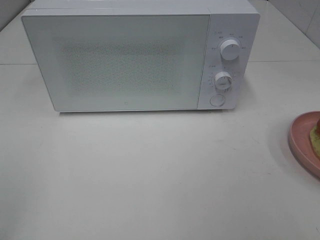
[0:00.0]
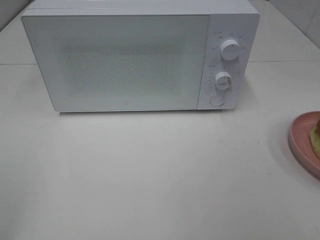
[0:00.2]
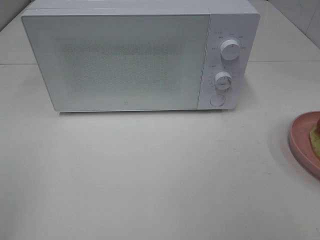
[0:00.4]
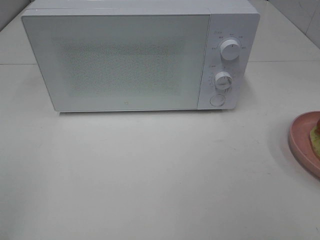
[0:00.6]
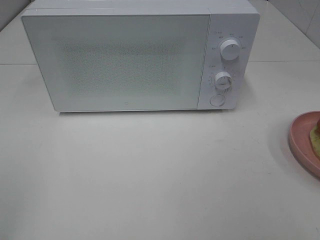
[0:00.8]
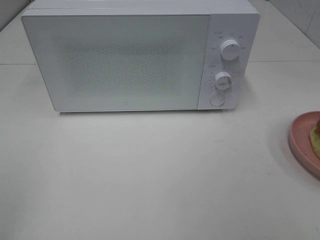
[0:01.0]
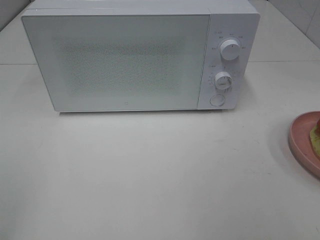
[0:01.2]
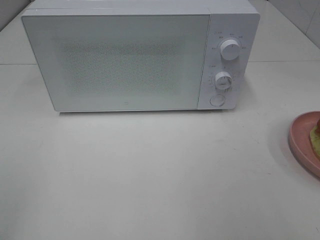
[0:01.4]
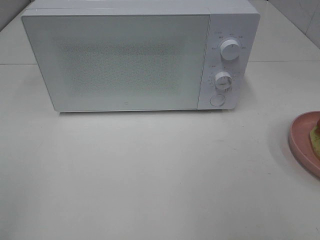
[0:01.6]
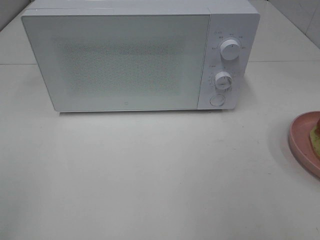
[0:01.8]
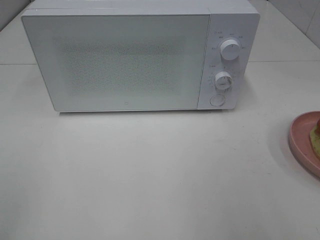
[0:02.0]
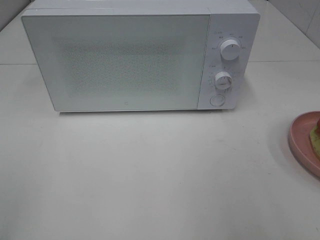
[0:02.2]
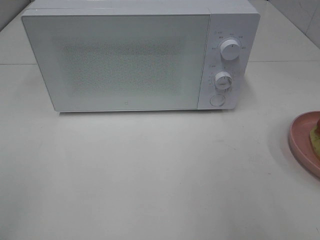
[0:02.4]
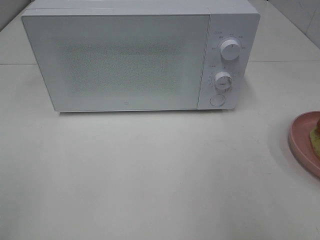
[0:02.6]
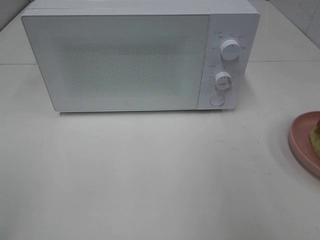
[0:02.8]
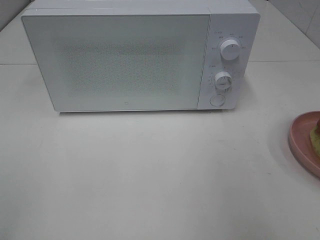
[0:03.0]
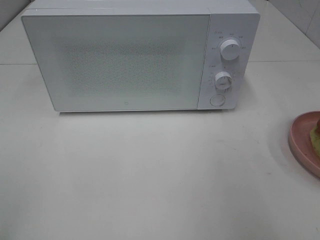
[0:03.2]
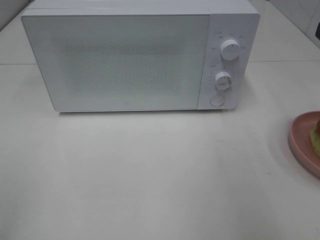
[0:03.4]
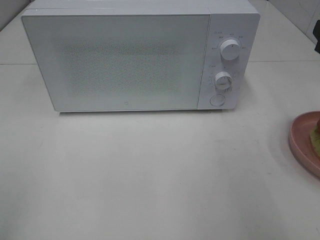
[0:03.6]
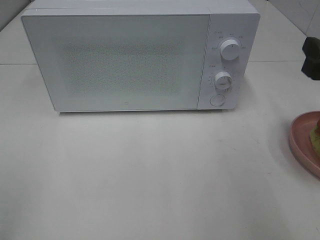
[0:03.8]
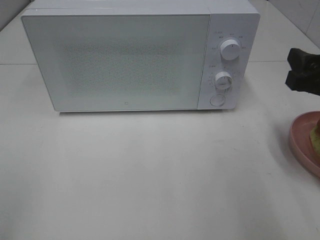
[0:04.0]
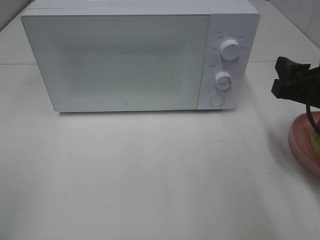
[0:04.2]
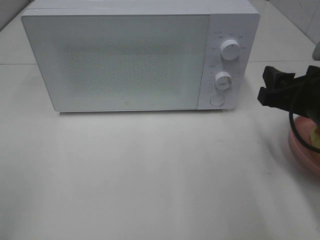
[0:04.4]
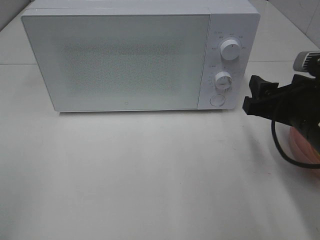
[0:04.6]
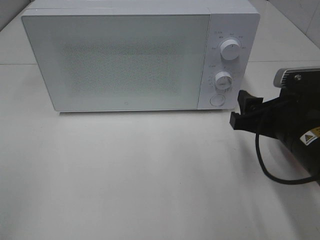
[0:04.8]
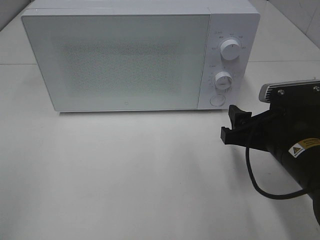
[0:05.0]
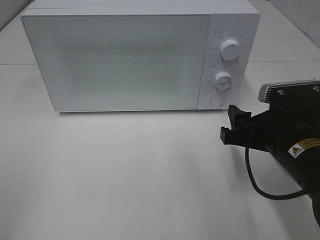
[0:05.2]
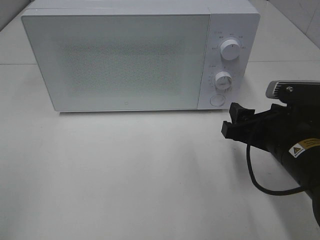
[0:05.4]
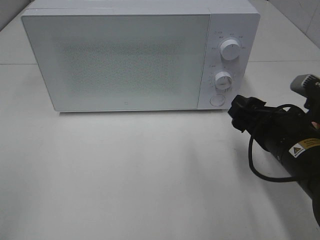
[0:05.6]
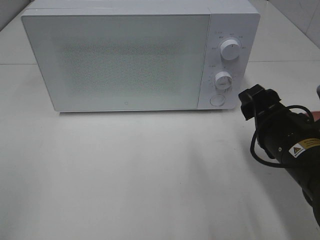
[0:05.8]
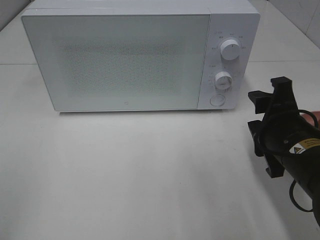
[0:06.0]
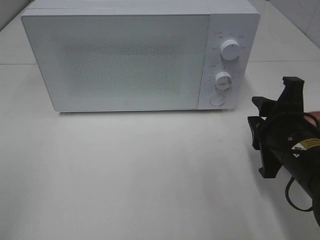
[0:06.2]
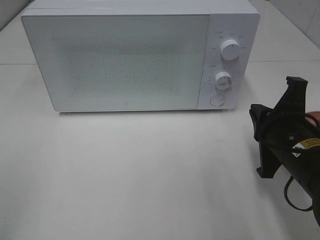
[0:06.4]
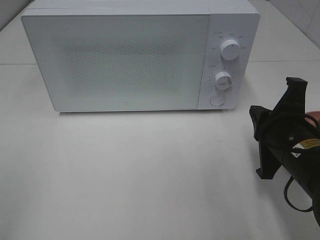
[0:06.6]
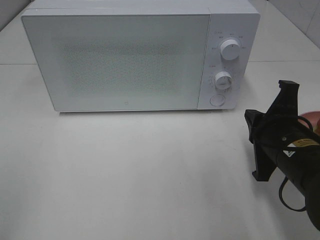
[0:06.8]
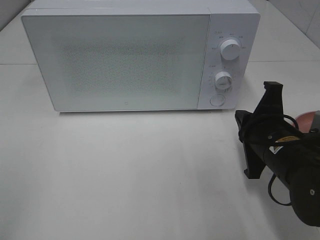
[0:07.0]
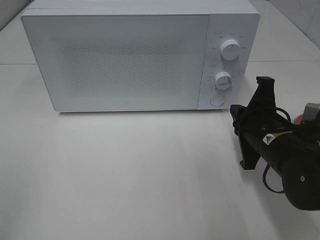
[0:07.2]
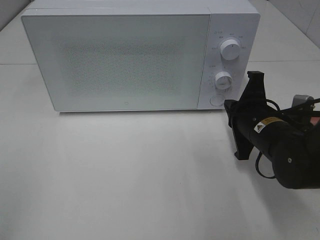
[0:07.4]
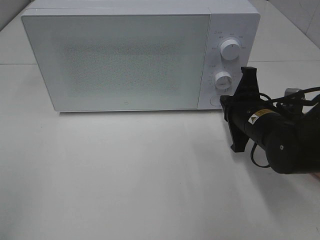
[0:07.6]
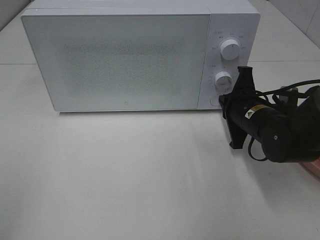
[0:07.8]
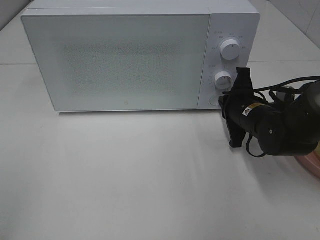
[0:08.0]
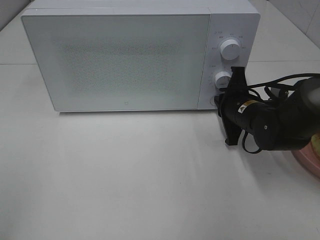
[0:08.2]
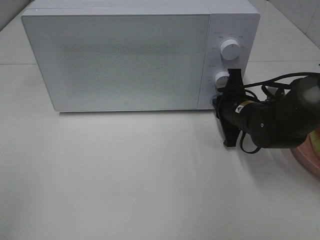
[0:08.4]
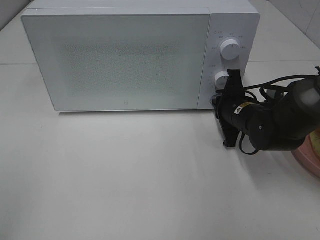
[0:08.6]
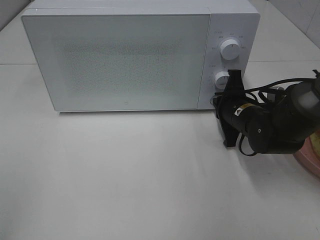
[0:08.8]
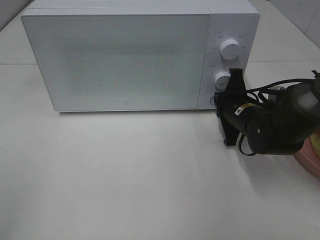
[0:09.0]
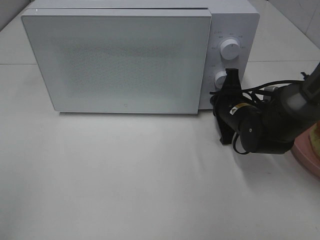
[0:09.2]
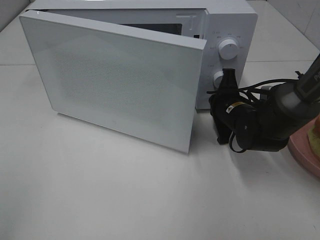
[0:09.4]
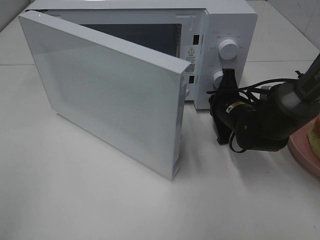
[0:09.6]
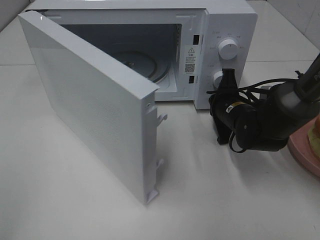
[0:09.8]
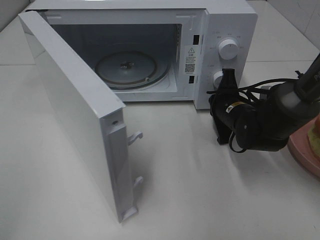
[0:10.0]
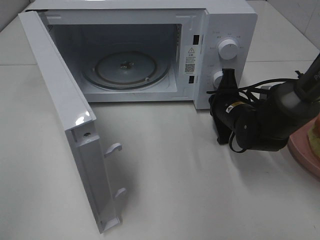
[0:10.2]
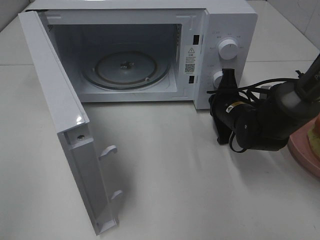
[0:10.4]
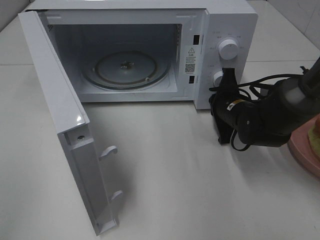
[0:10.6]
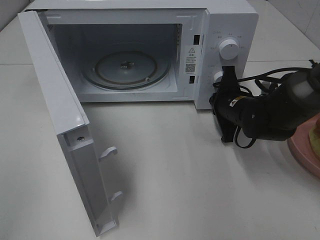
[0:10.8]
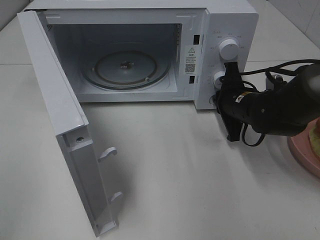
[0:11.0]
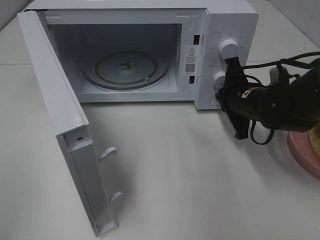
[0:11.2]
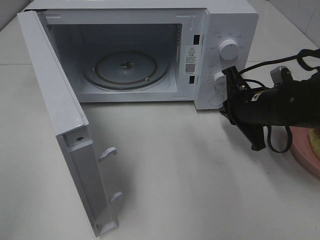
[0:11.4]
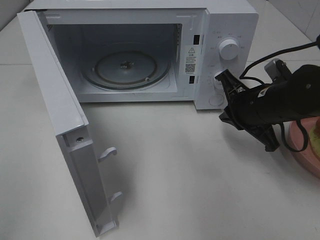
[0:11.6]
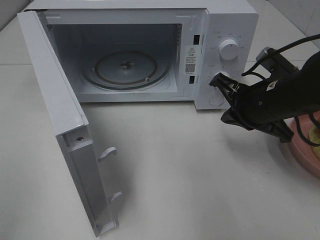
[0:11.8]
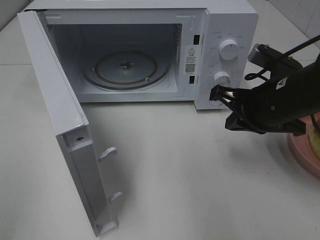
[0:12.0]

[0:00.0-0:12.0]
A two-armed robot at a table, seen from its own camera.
Task of the whole recording: Heat Sandwich.
Step, 0:00.0 to 0:11.2: Right hand: press the switch.
0:03.0 to 0:04.4: The right gripper moves downward and to the left, about 15 cm.
0:04.4 to 0:06.0: The right gripper ends up about 5 cm from where it was.
0:06.0 to 0:07.6: The right gripper heads forward, covering about 10 cm, and closes its fingers.
0:07.6 to 0:09.0: The right gripper ends up some 5 cm from where it was.
0:10.4 to 0:12.0: The right gripper travels upward and backward by some 15 cm.

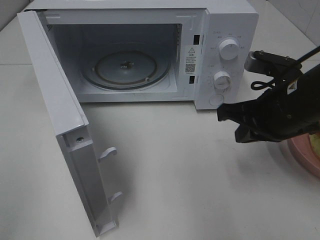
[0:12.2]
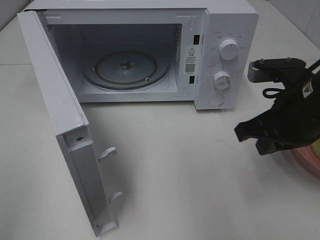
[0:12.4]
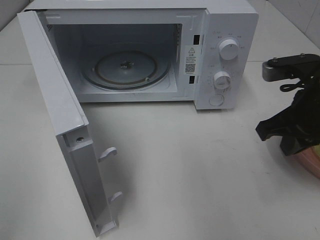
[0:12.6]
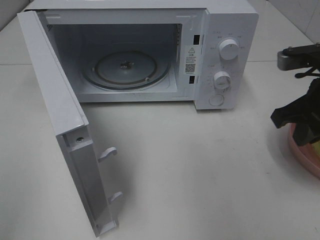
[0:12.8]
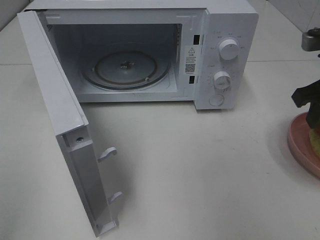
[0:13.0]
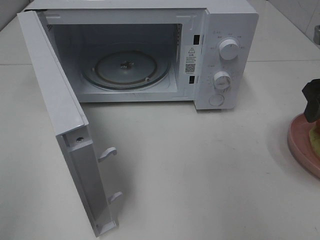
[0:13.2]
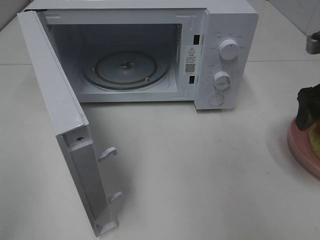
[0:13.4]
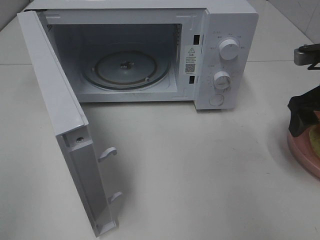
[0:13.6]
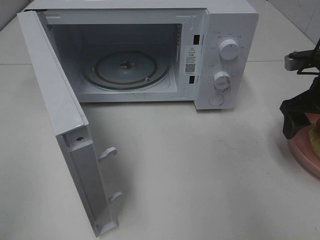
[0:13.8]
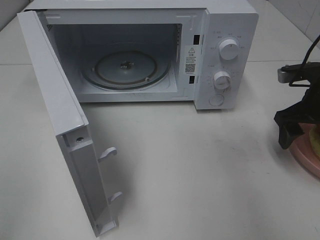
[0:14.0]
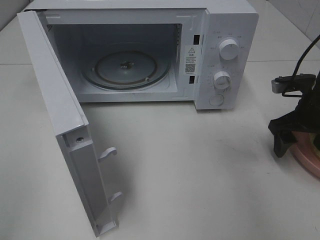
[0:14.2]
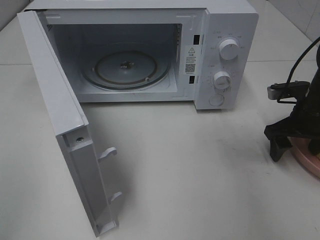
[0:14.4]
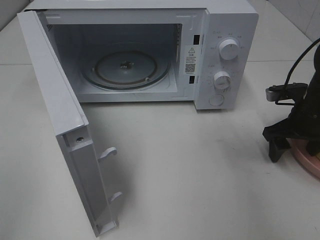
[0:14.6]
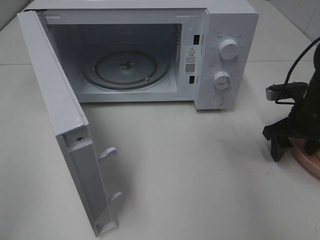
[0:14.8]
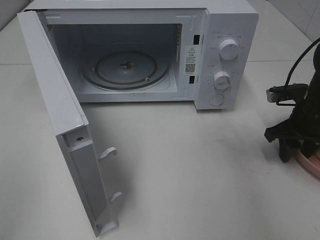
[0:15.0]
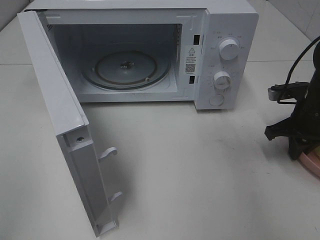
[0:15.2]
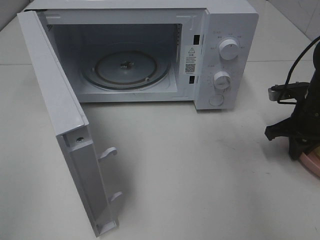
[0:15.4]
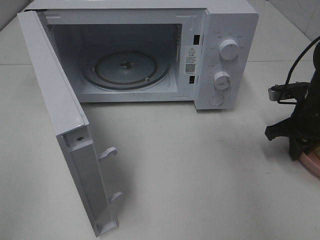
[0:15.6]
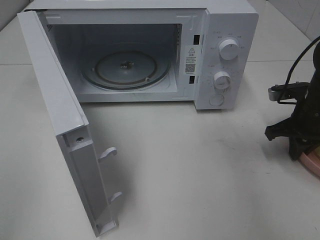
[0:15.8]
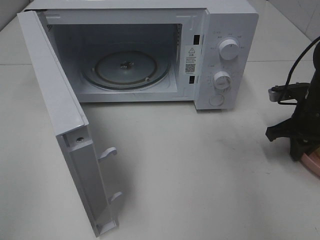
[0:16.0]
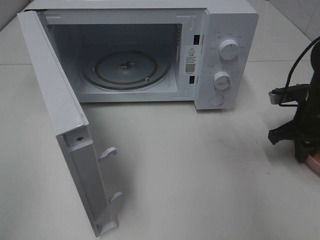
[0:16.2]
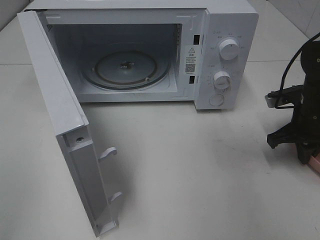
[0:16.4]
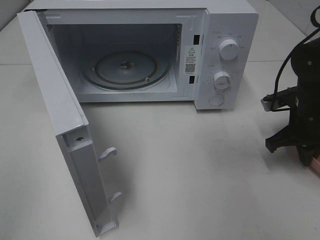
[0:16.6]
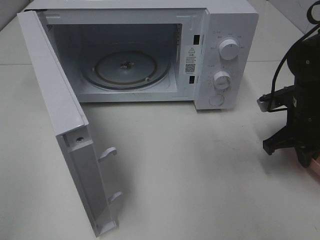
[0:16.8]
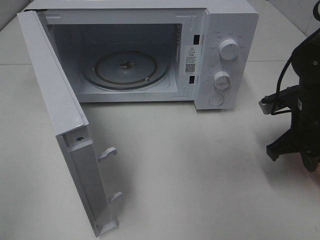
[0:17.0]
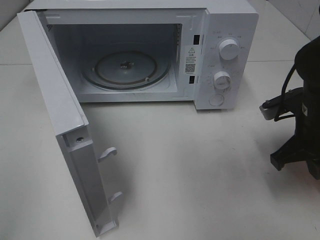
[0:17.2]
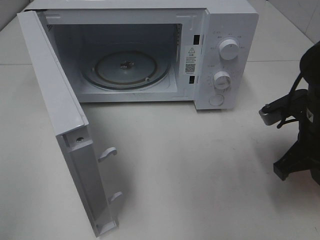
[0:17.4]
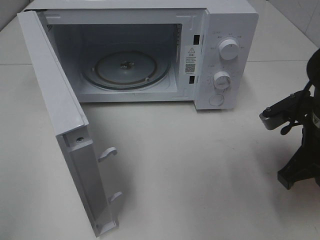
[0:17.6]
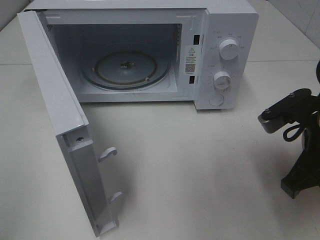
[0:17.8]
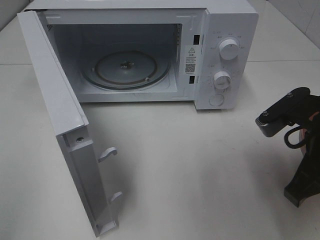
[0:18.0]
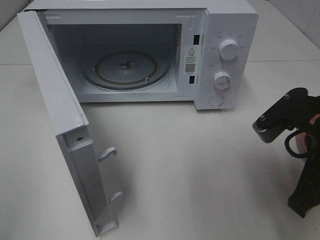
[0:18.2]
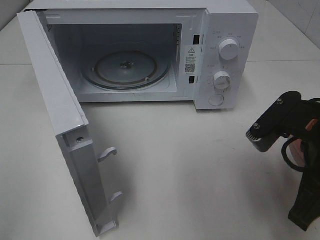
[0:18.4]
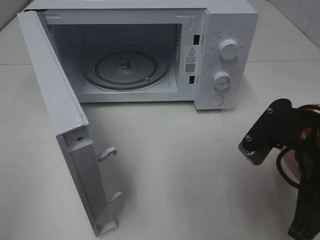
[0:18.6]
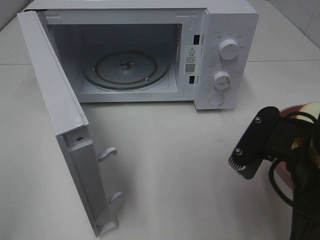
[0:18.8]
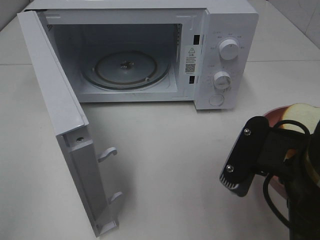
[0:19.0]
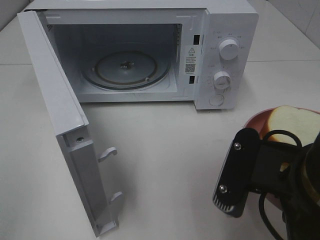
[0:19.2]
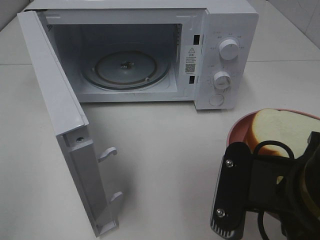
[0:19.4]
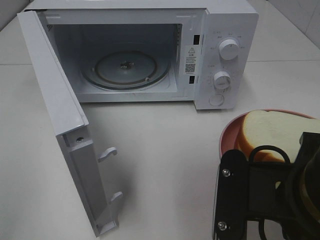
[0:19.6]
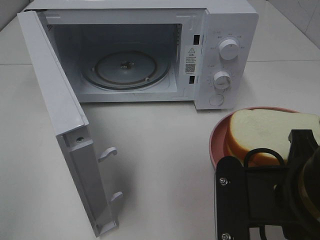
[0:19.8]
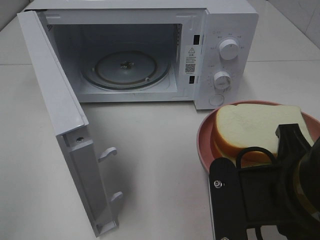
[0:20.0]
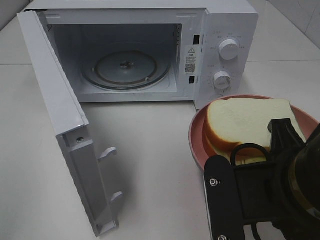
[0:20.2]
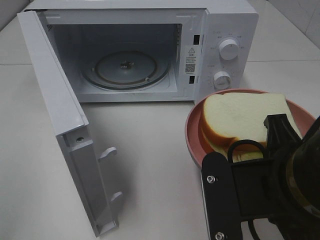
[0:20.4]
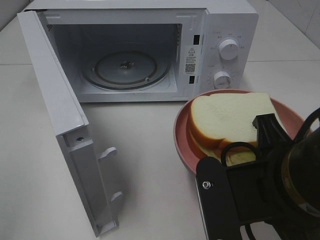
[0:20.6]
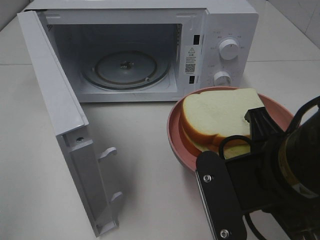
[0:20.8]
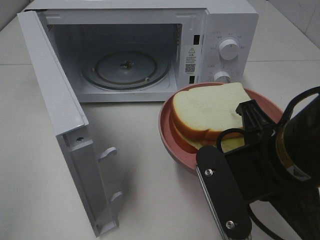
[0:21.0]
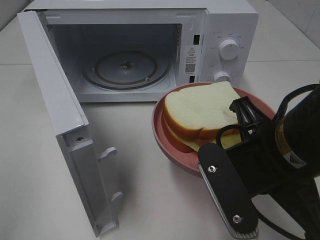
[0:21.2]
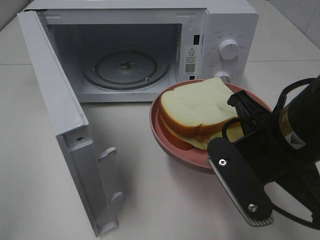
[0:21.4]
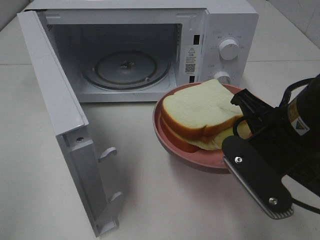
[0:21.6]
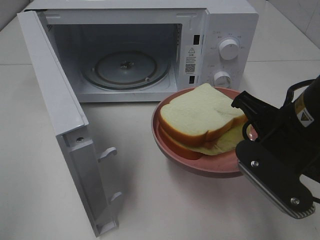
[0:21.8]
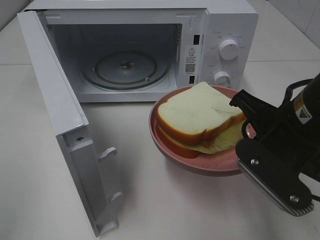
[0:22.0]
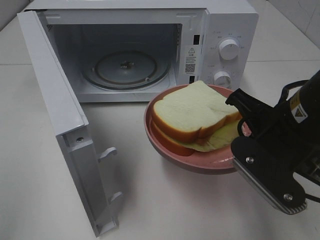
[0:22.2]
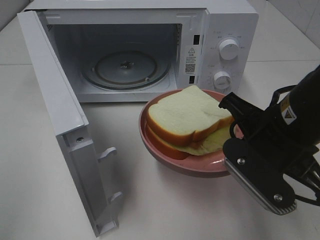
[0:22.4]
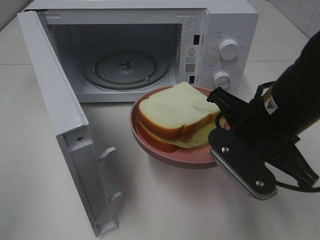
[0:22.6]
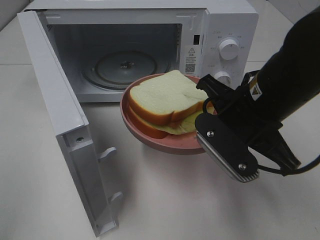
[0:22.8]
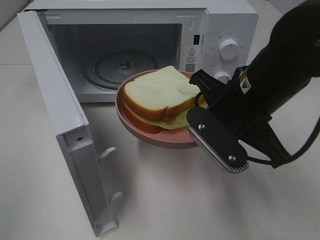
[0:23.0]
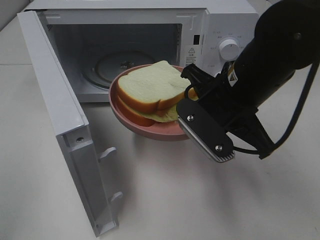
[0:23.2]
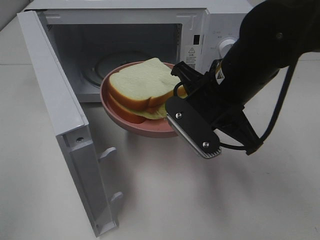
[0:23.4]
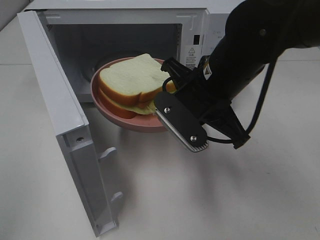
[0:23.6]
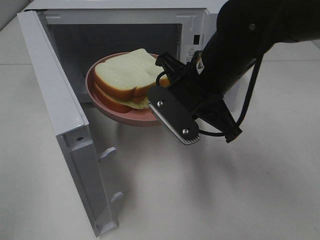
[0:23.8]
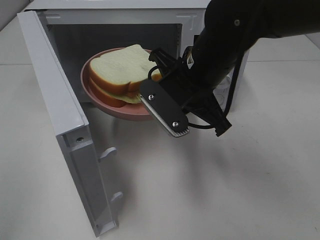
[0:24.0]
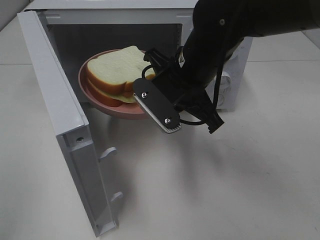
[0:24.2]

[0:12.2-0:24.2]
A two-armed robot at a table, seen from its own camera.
Task of the whole recording: Heat Sandwich.
Step, 0:12.2 to 0:15.8: Right hand: grab the plate with the sandwich.
0:12.2 to 0:13.8: The right gripper heads to the right and forward, covering some 15 cm, and opens up.
0:13.8 to 0:15.2: The right gripper goes about 5 cm downward, and closes up.
0:15.2 to 0:16.6: There are only small adjustments of the grippers.
0:16.6 to 0:18.2: The right gripper shifts about 20 cm backward, upward and to the left.
0:18.2 to 0:19.8: The right gripper goes some 10 cm backward and to the left.
0:19.8 to 0:21.2: The right gripper is displaced forward by roughly 5 cm.
0:21.2 to 0:22.6: The right gripper goes some 5 cm forward.
0:22.6 to 0:24.2: The right gripper moves forward and to the left, roughly 10 cm.
